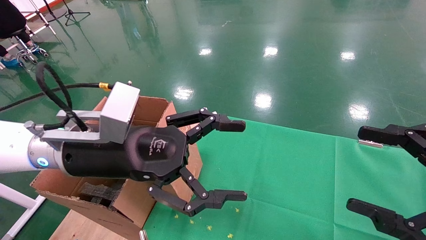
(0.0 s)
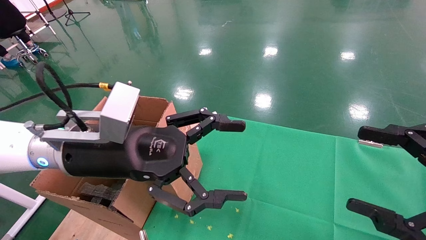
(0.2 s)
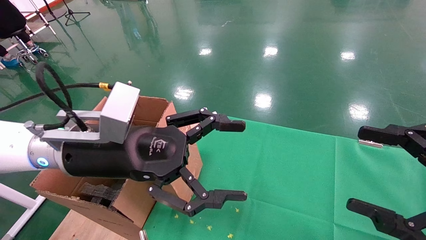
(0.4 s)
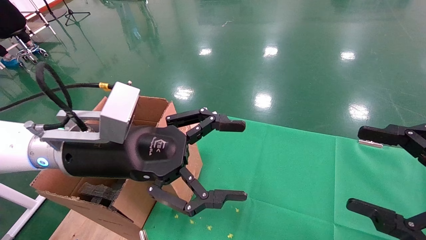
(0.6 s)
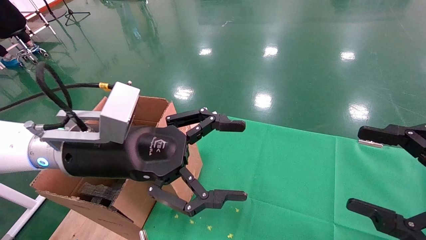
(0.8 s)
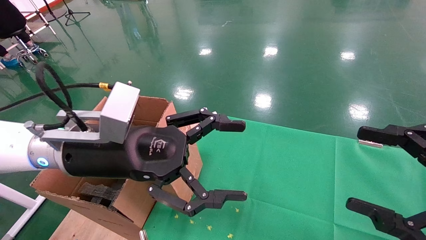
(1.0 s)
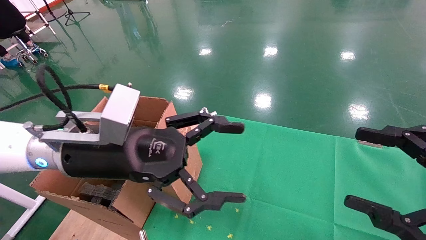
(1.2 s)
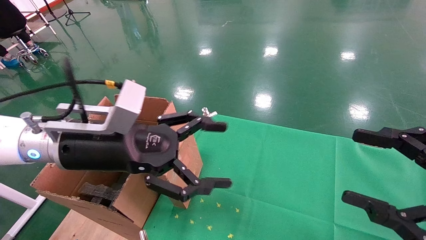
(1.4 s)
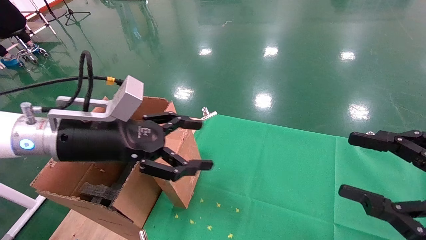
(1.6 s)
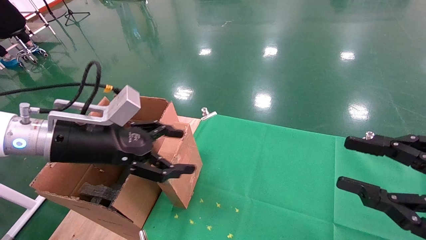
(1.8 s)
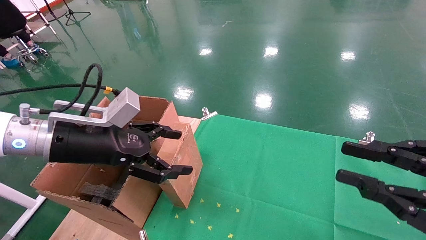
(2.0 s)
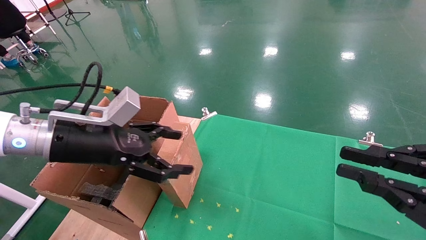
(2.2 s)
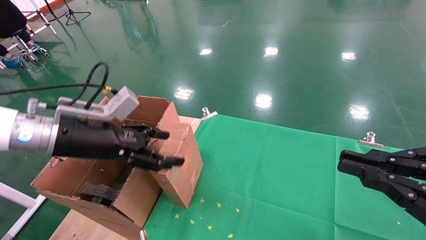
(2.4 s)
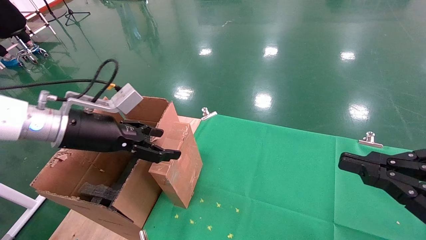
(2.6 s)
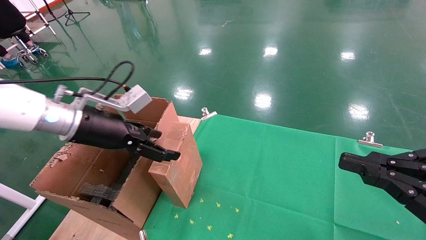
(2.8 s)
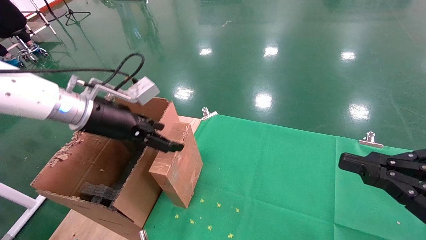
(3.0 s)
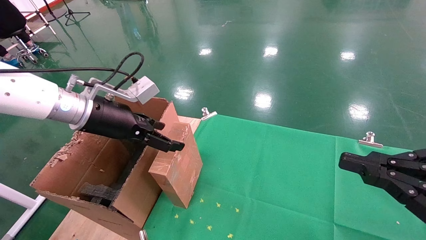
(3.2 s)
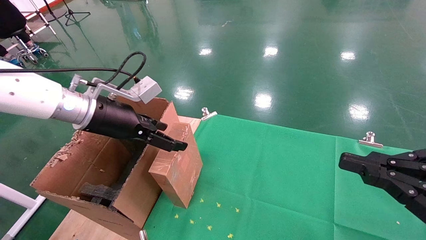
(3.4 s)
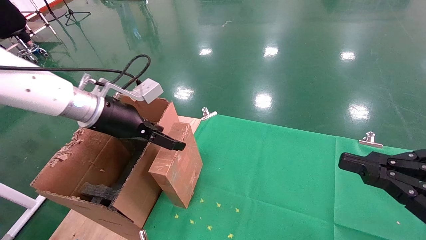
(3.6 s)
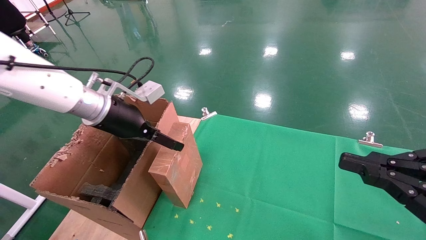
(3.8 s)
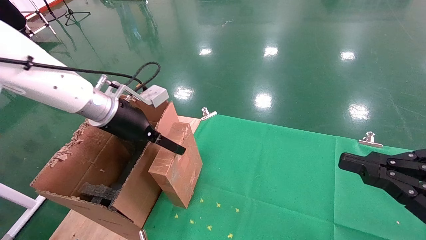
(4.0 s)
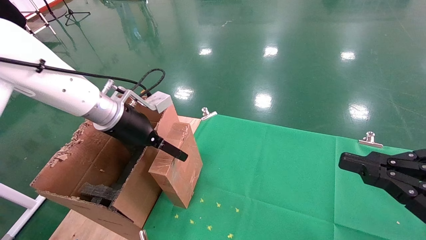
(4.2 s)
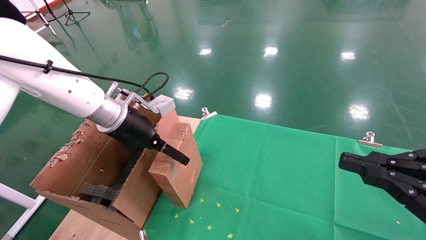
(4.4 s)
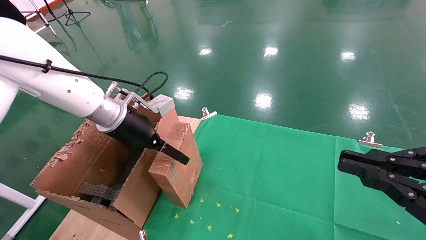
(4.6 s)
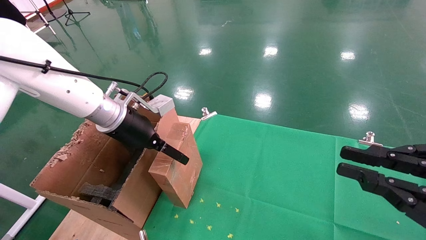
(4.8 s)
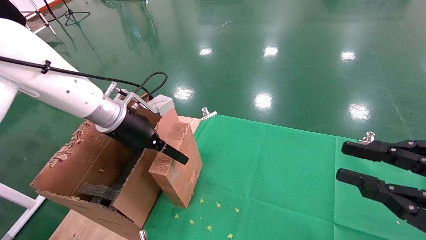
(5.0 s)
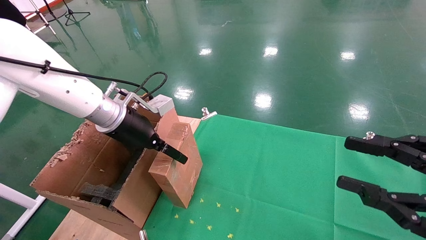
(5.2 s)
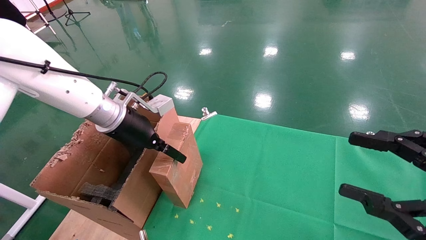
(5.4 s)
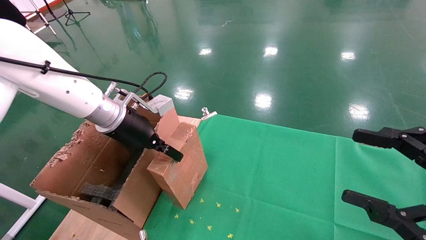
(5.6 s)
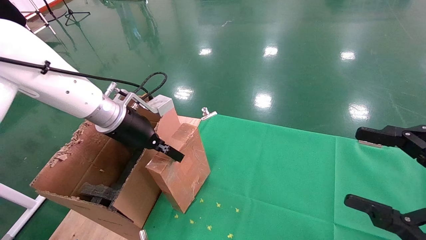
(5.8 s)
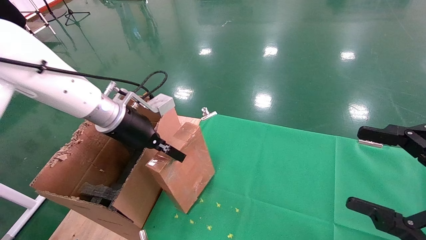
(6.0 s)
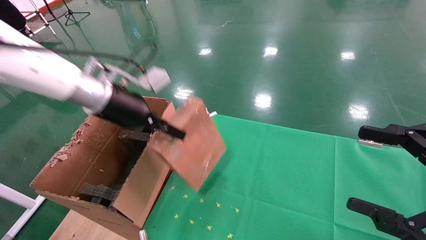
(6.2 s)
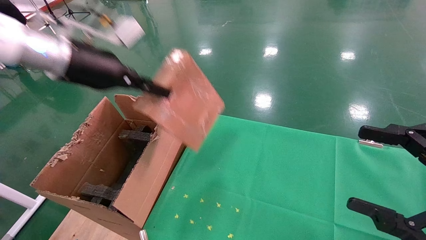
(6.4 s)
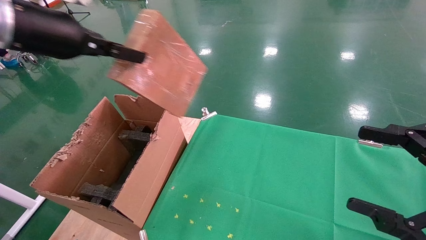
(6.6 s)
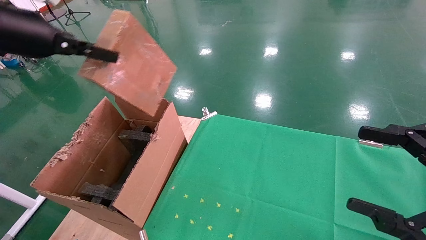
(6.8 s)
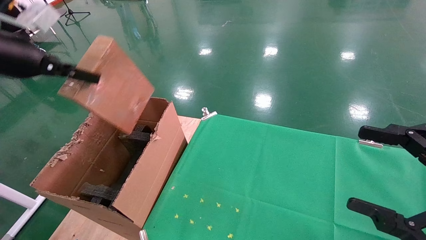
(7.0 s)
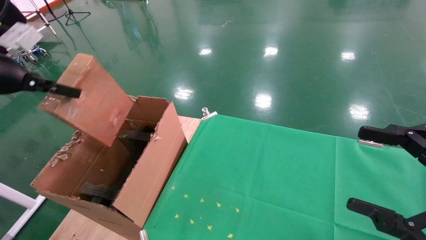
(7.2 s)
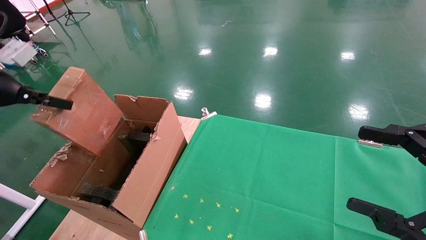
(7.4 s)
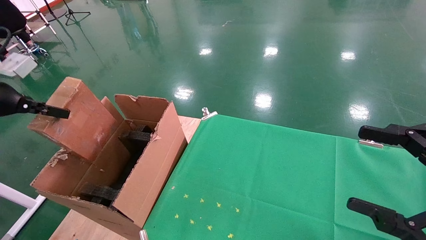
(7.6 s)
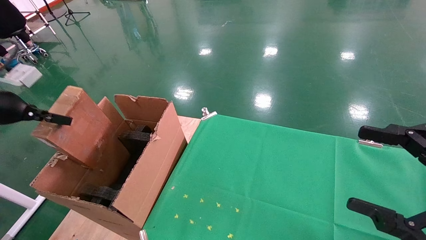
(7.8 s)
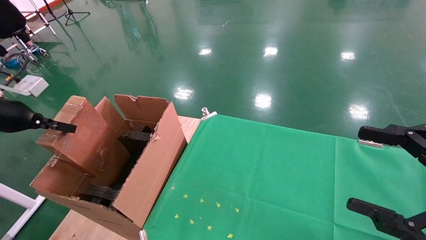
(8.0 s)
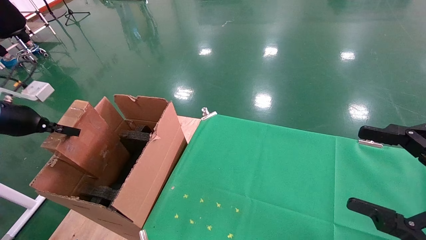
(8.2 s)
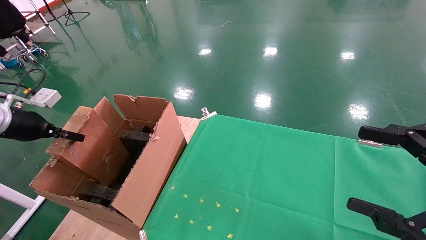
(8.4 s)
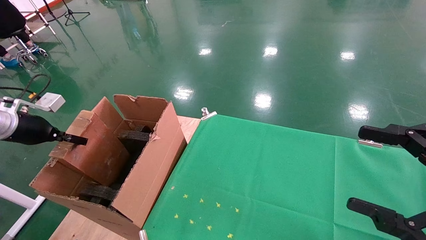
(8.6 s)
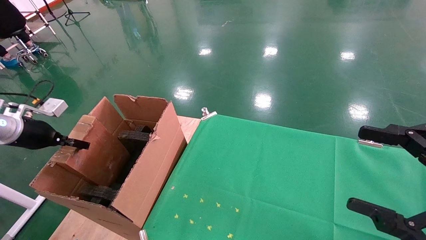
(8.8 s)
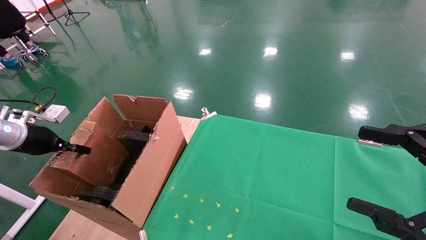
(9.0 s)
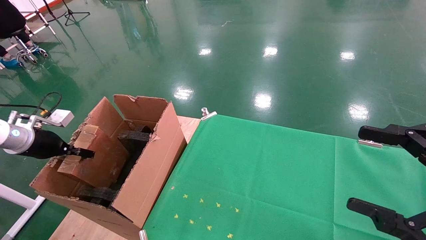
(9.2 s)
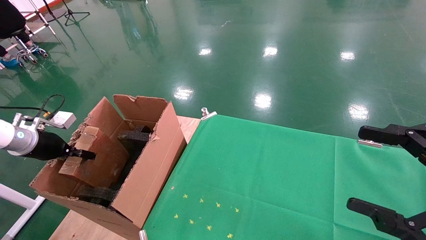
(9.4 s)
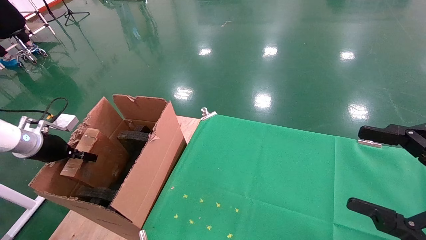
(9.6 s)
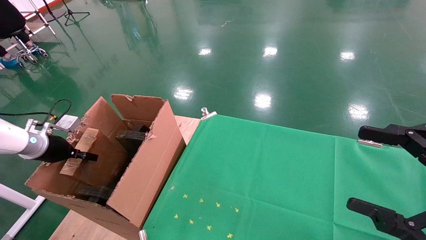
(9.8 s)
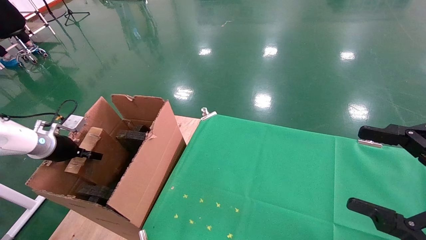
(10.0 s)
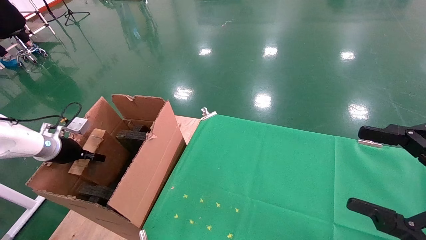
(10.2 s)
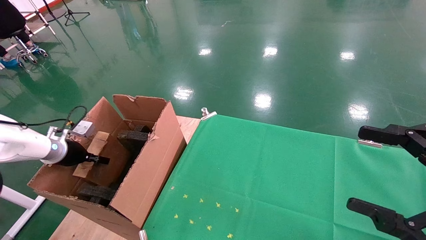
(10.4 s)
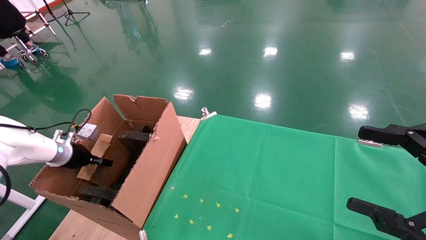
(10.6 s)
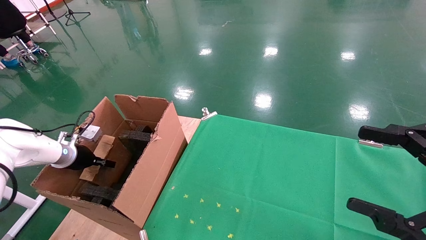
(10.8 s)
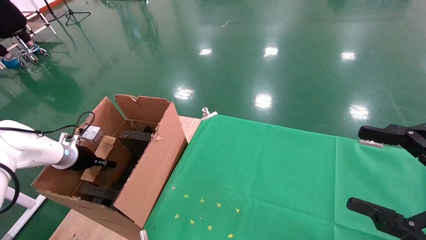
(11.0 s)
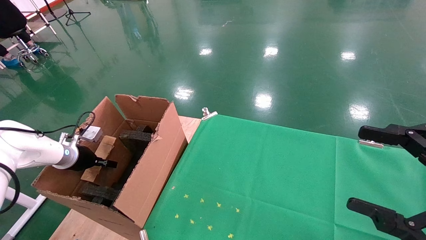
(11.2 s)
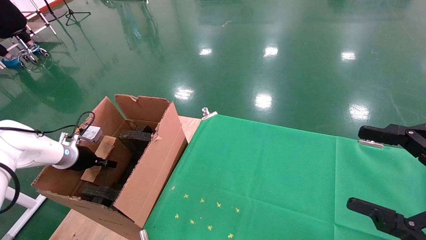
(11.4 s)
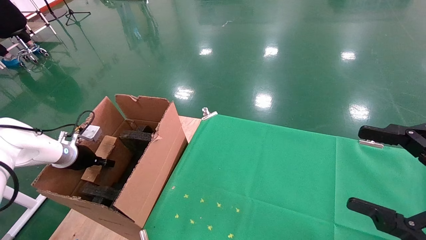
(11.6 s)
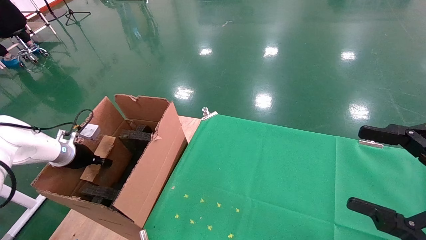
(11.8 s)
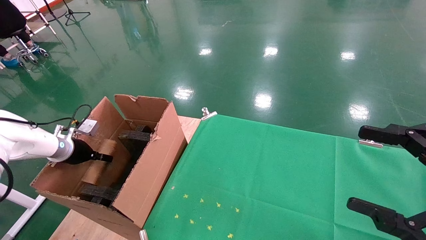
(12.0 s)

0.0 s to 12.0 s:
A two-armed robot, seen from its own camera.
Task of the whole recording: using a robotic arm to pick up a cardboard box and palace it the carton.
Step, 1.4 to 5.6 s: Pick up the mouse and the power cord paper box.
0.0 to 1.6 s: The left gripper moves roughly 5 cm.
1.6 to 3.0 s: The left gripper is displaced forward by about 5 cm. Meanwhile the right gripper closes.
3.0 to 4.4 s: The left gripper shifts by approximately 5 cm.
4.4 to 6.0 s: The left gripper closes; the right gripper opens up.
6.0 to 7.6 s: The left gripper is displaced to the left by roughly 25 cm.
7.6 to 9.0 s: The left gripper travels downward and forward by about 15 cm.
9.0 to 10.4 s: The left gripper moves downward and forward, about 10 cm.
10.4 to 12.0 s: The left gripper opens its fingers.

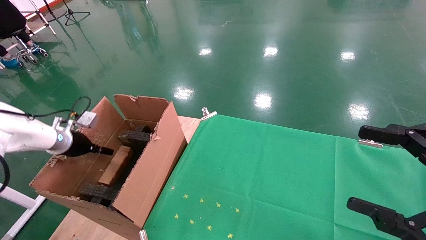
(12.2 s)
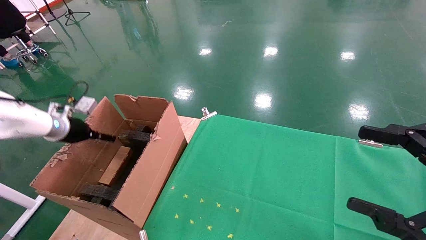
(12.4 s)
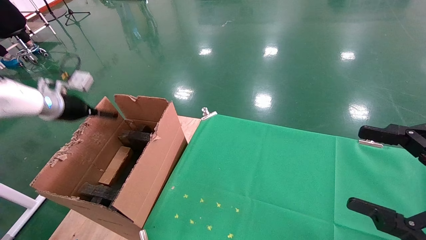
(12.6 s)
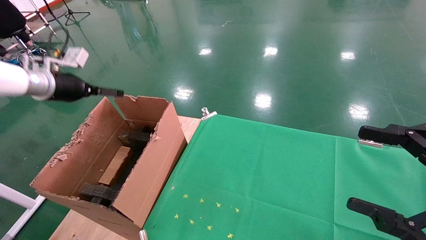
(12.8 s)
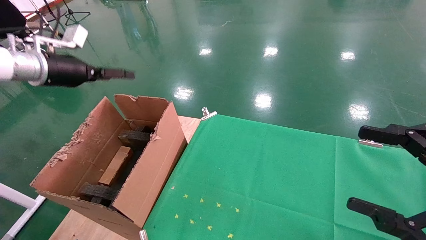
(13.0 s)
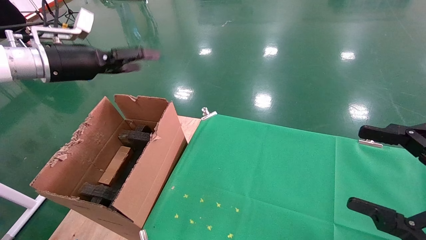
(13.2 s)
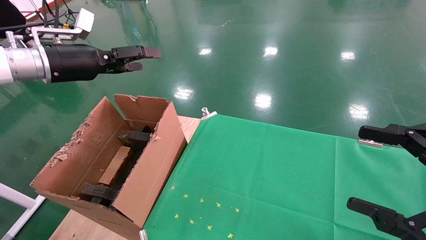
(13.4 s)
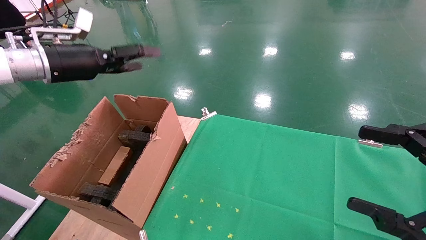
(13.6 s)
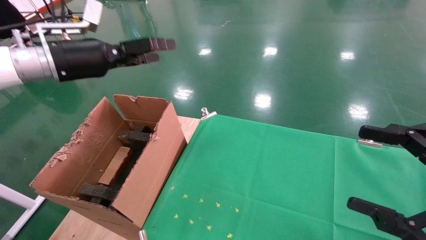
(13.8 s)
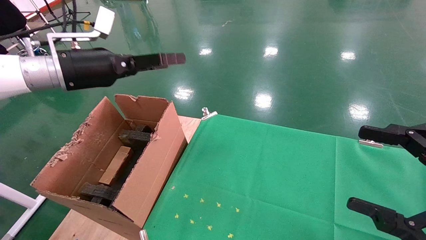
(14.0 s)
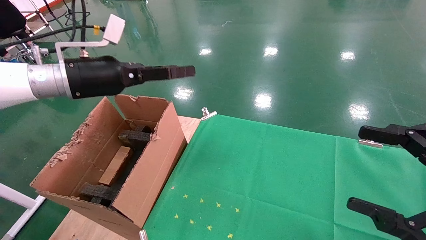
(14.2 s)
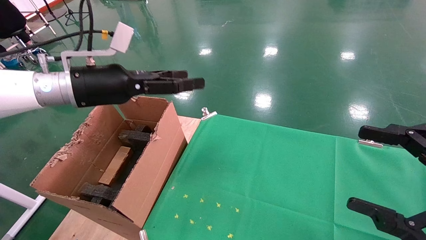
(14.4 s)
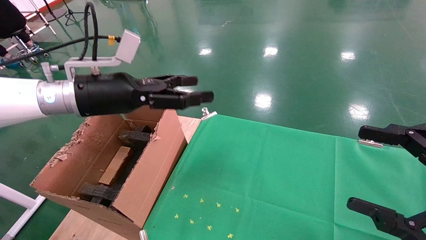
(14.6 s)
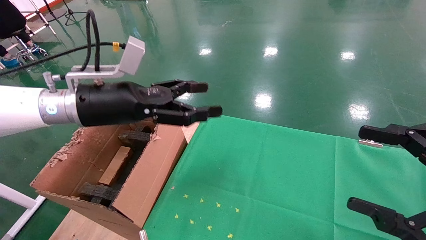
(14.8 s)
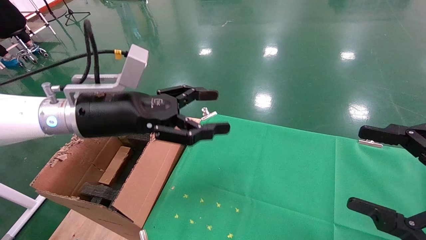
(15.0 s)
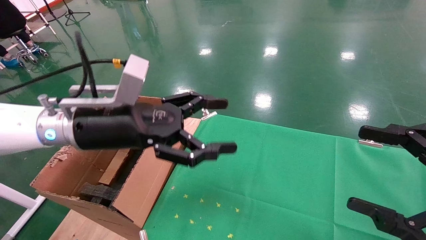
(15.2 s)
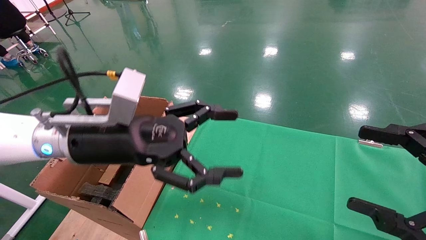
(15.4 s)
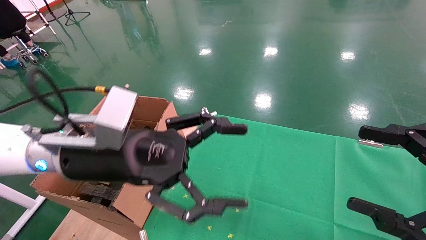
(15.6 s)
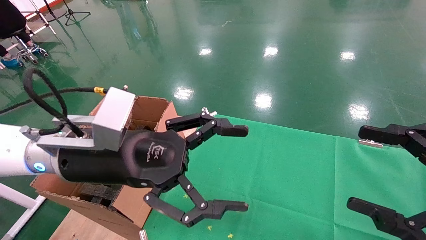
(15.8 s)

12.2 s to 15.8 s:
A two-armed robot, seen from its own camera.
Task of the whole recording: using a robotic arm to pick up a cardboard box and palace it the carton.
12.2 to 14.0 s: The left gripper moves upward and to the right, approximately 25 cm.
14.0 to 15.8 s: The left gripper shifts approximately 20 cm to the right, backward and downward.
